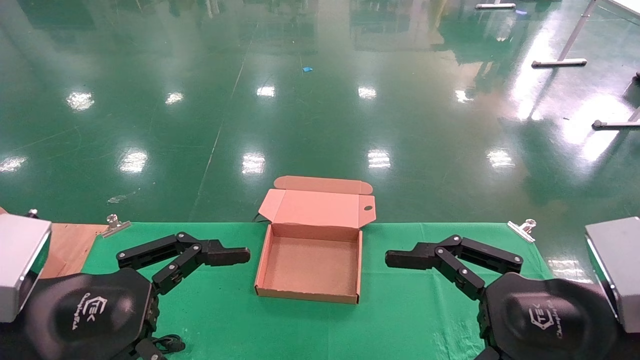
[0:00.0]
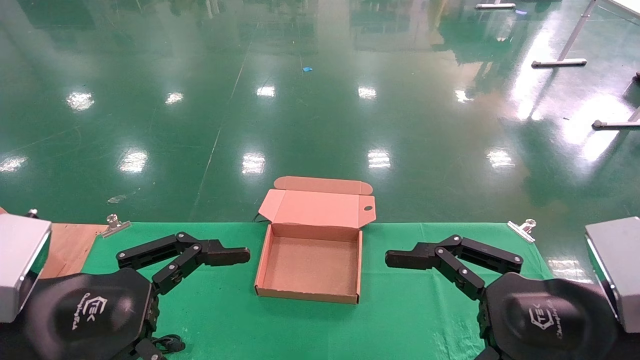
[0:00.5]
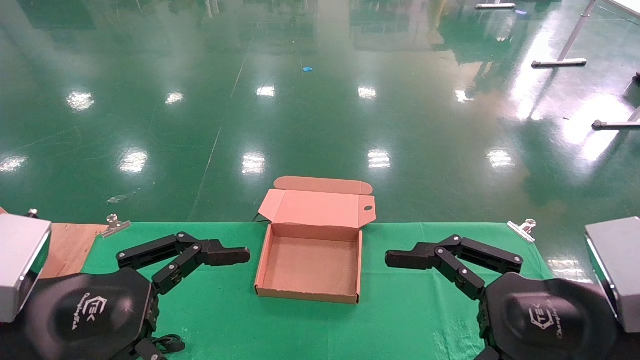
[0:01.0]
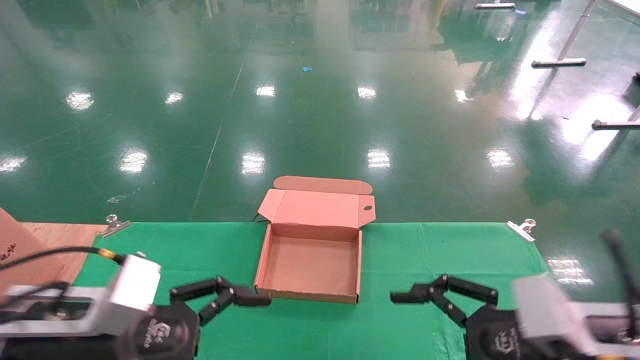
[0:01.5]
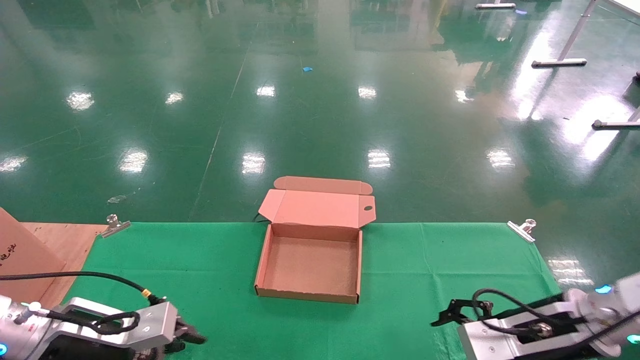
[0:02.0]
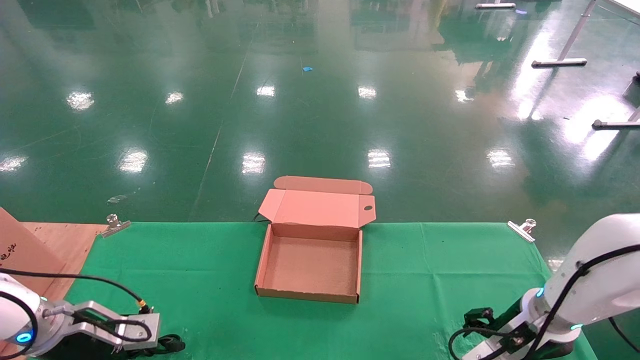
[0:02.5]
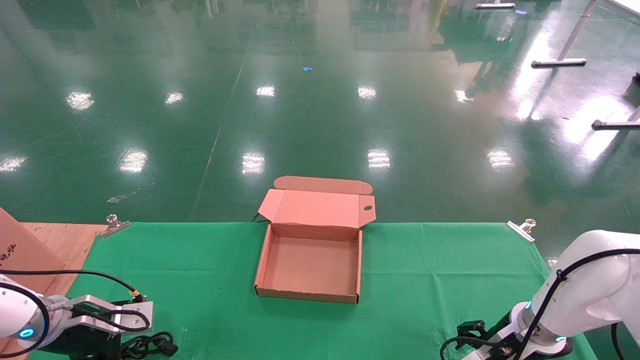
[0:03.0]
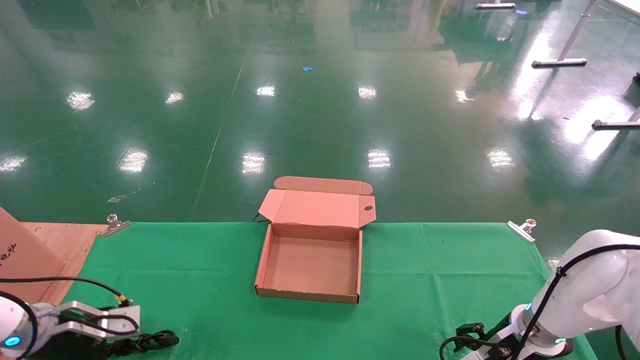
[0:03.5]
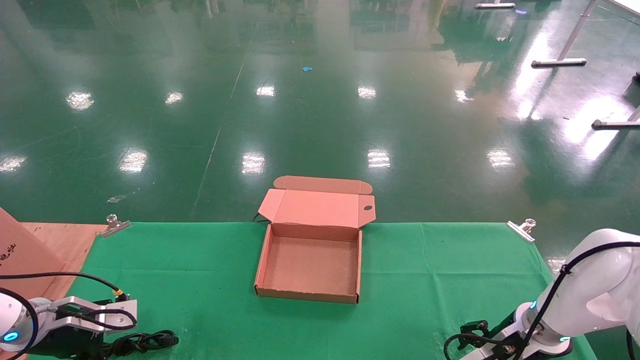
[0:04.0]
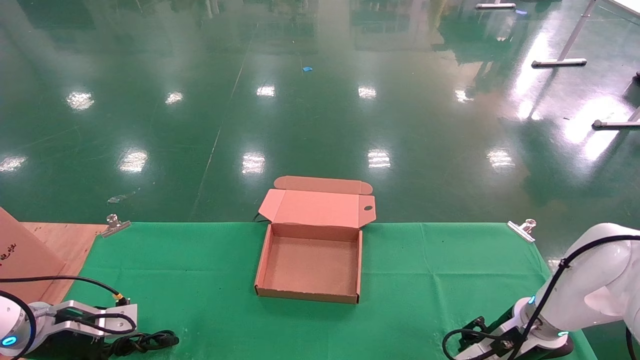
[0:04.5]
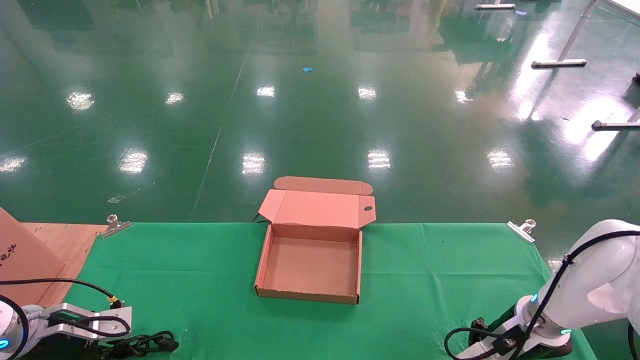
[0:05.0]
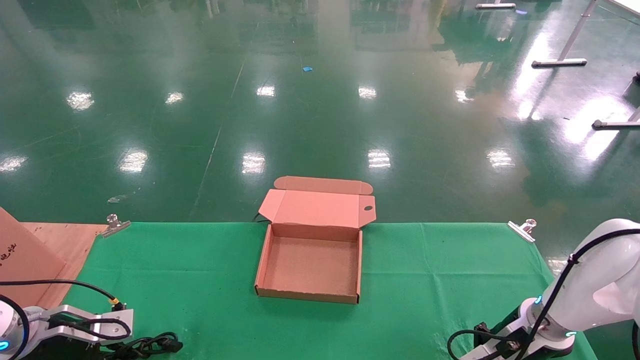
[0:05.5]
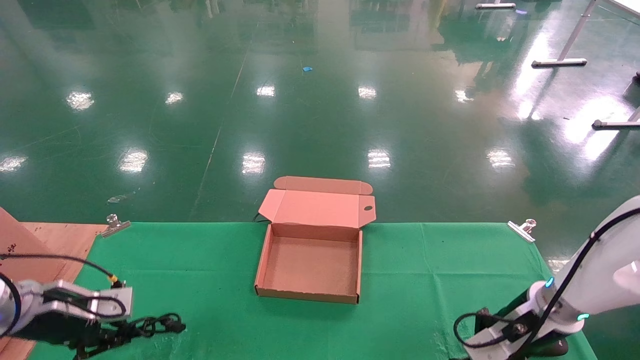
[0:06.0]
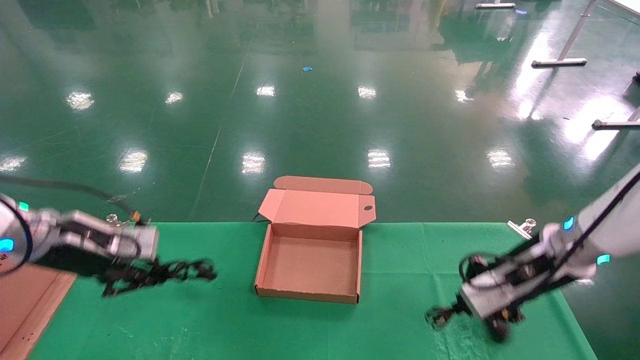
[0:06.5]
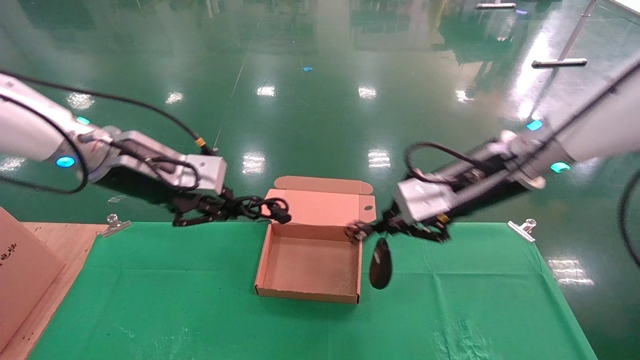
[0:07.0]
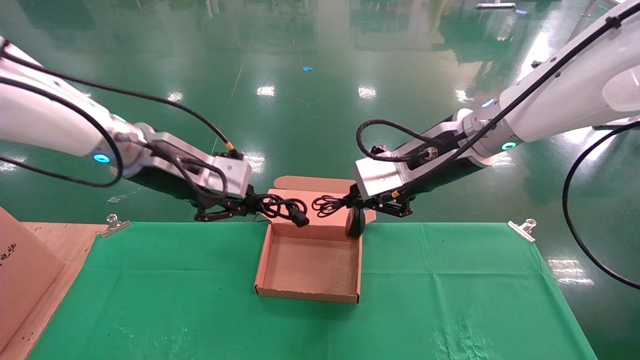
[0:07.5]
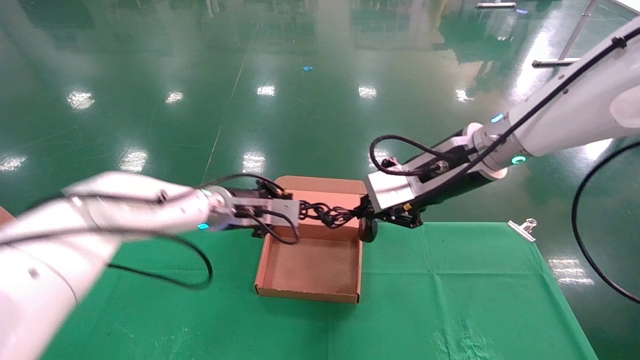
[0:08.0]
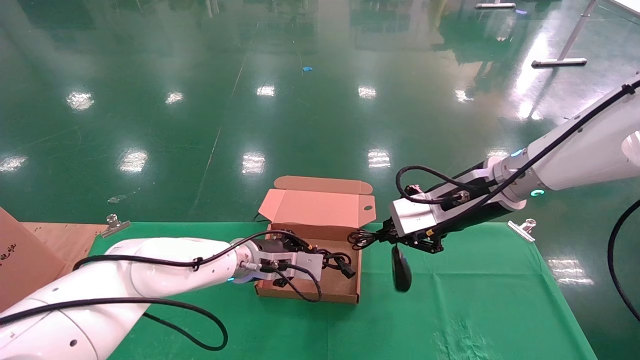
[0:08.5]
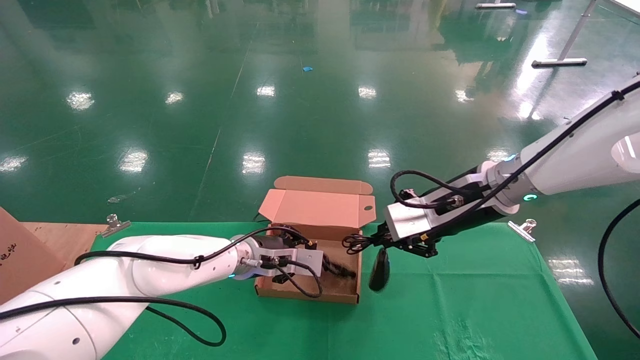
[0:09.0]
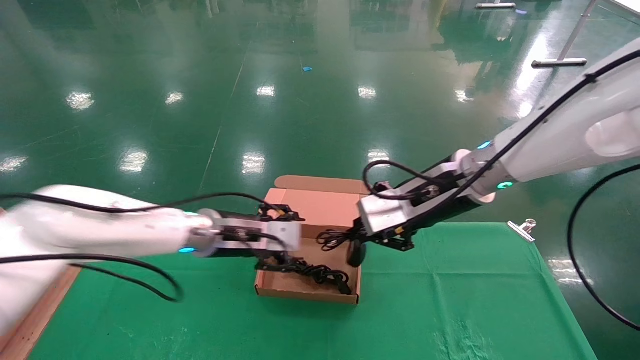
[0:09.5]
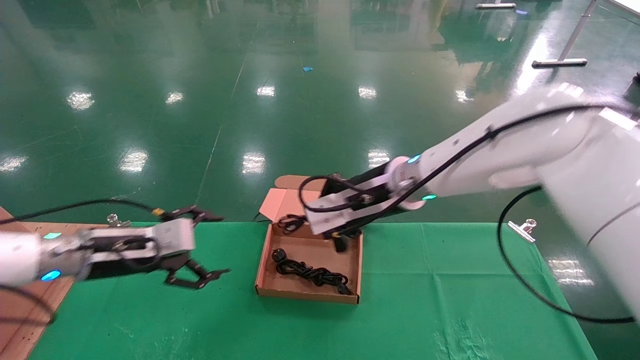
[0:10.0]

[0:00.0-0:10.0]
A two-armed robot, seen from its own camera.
Step, 0:01.5 to 0:06.0: Grab and lift both the mouse and power cord from the accessory packaging area at the same time.
0:00.0 to 0:02.0: The two grippers go roughly 20 cm forward and downward.
0:02.0 to 0:04.0: The right gripper is displaced forward and downward by some 10 cm. Meanwhile the left gripper moves to the left and forward, about 10 cm.
0:04.0 to 0:06.0: The left gripper closes; the right gripper shifts by some 5 cm, and closes.
0:06.0 to 0:08.0: The right gripper shifts approximately 25 cm upward and to the left. The left gripper moves to the right, approximately 25 cm.
0:08.0 to 0:10.0: The left gripper heads to the left and backward, covering roughly 20 cm, and opens its fingers; the right gripper moves to the left and downward, approximately 10 cm.

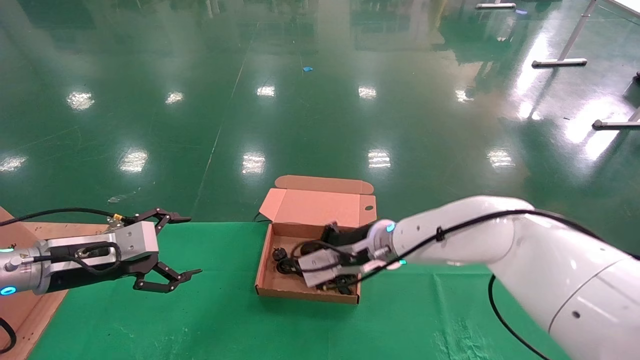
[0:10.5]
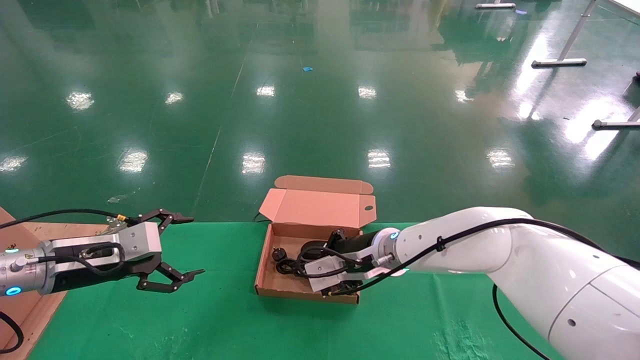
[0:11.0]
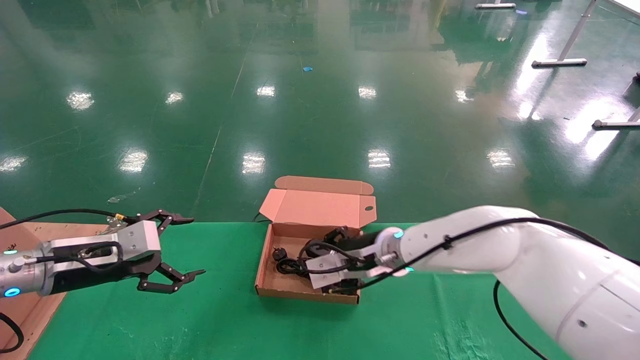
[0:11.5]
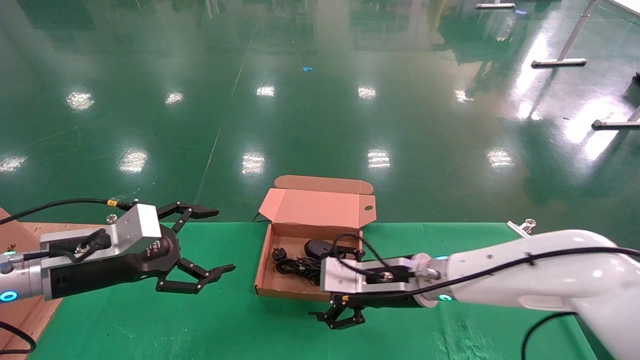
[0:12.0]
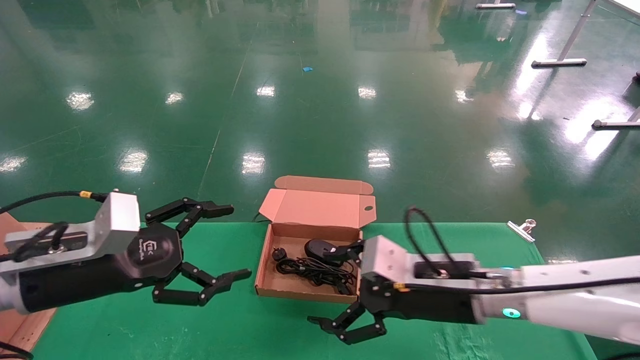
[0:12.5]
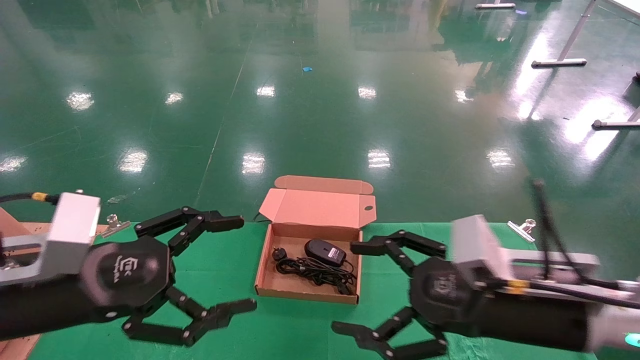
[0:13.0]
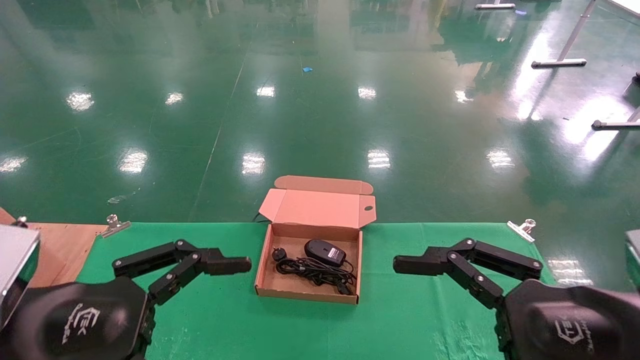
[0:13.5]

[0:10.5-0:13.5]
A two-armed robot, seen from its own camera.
Step, 0:10.5 to 0:13.0: Place the mouse and power cord into the box.
0:10.5 to 0:12.0: The left gripper changes place by roughly 5 cm; the right gripper shifts about 5 cm backward, and opens.
0:12.0 to 0:13.5: The left gripper moves backward, about 15 cm. The right gripper is displaced backward and to the right by some 25 cm.
